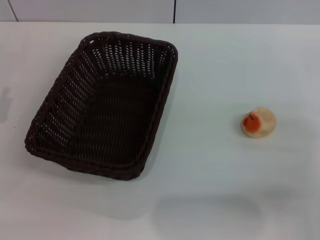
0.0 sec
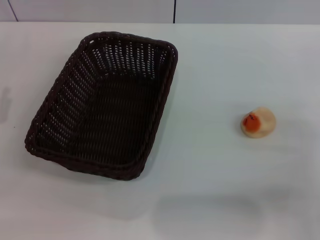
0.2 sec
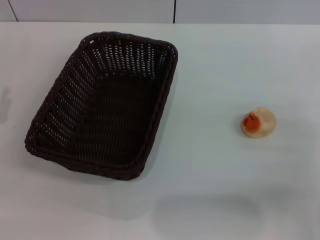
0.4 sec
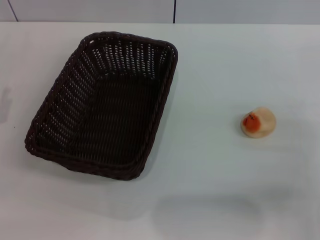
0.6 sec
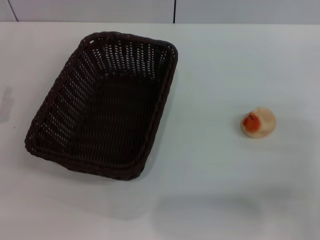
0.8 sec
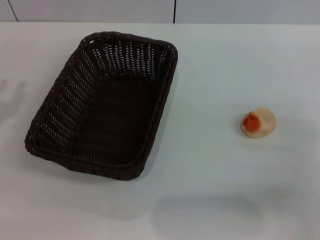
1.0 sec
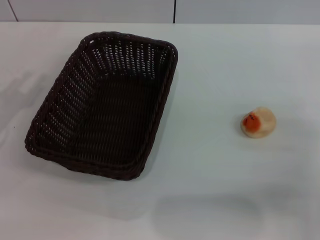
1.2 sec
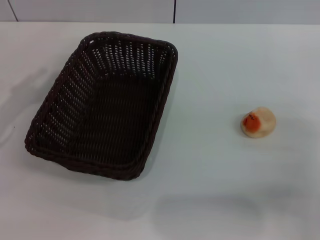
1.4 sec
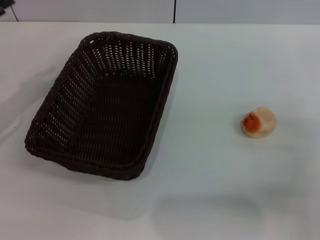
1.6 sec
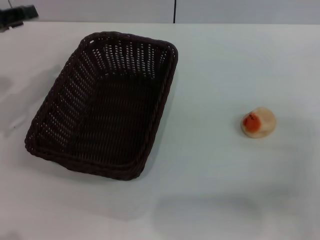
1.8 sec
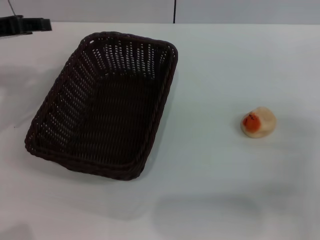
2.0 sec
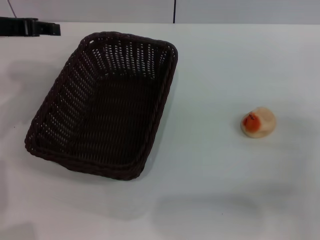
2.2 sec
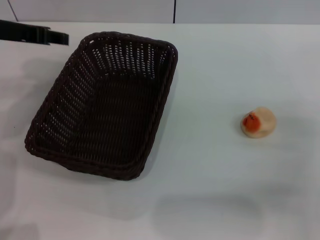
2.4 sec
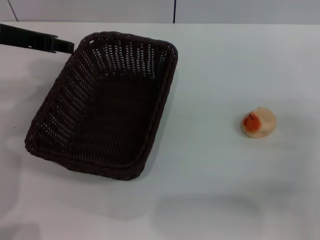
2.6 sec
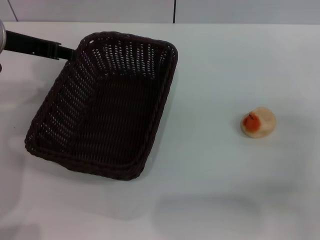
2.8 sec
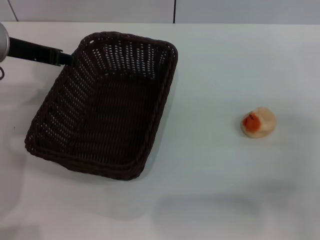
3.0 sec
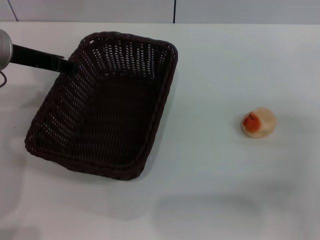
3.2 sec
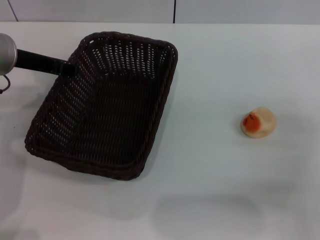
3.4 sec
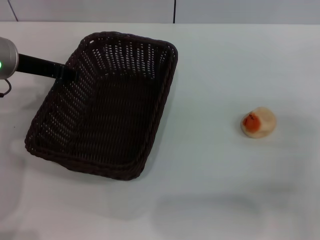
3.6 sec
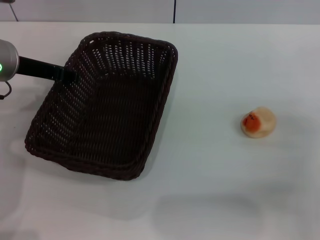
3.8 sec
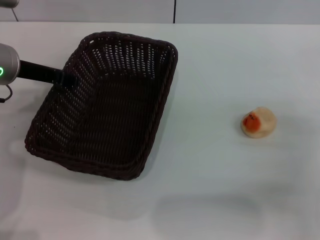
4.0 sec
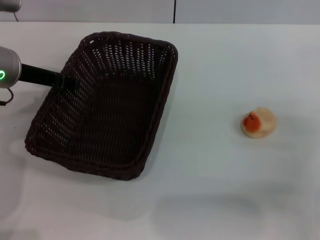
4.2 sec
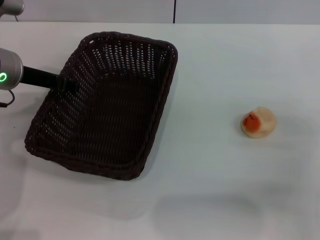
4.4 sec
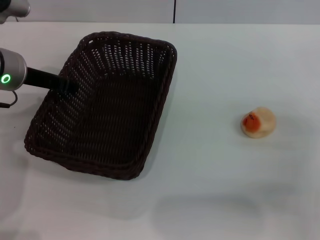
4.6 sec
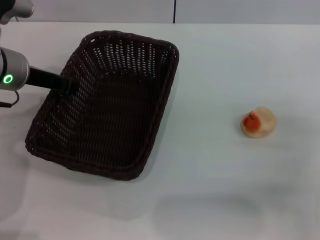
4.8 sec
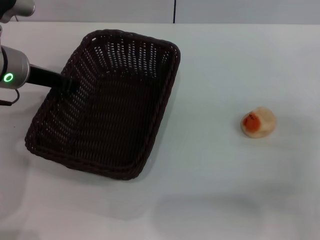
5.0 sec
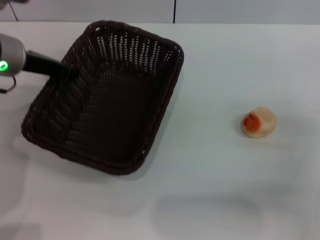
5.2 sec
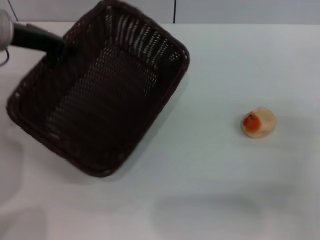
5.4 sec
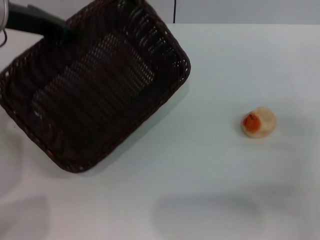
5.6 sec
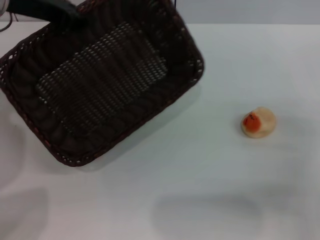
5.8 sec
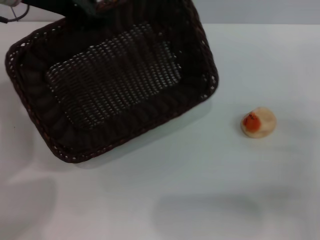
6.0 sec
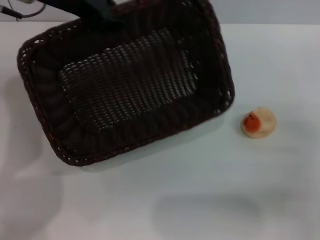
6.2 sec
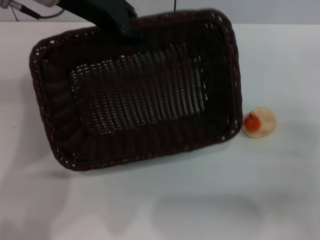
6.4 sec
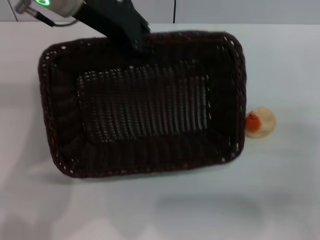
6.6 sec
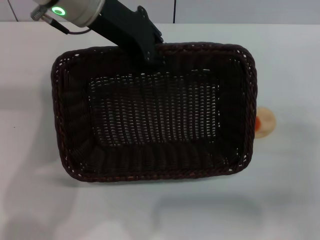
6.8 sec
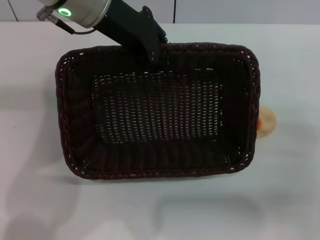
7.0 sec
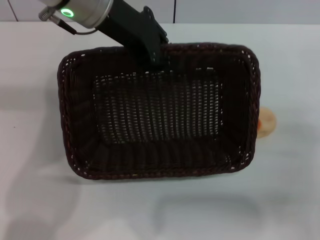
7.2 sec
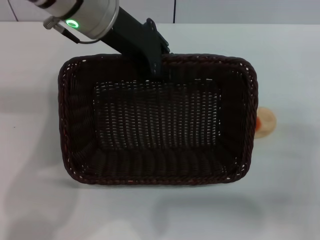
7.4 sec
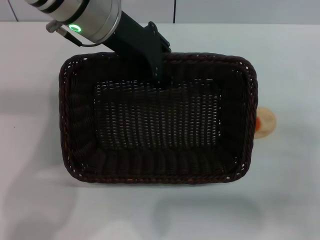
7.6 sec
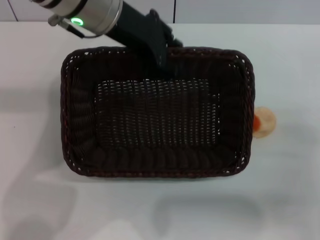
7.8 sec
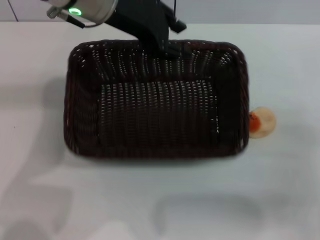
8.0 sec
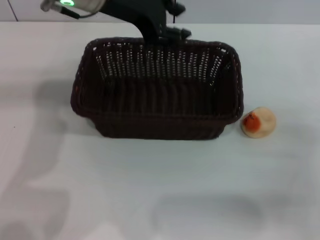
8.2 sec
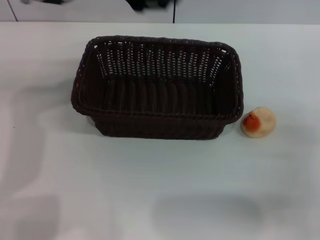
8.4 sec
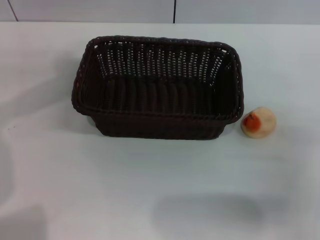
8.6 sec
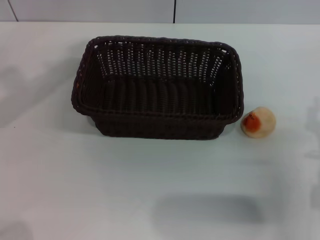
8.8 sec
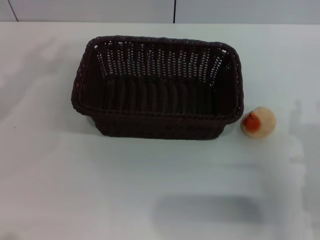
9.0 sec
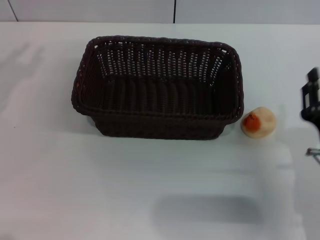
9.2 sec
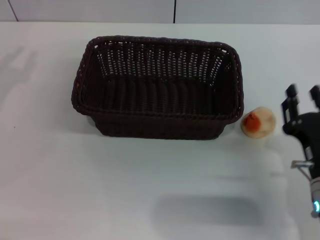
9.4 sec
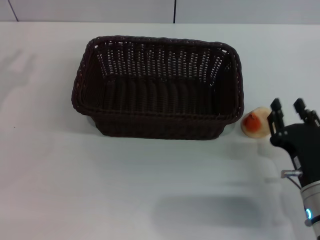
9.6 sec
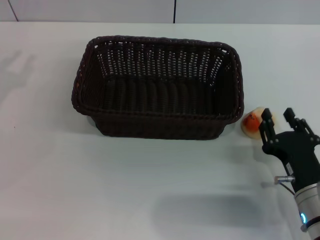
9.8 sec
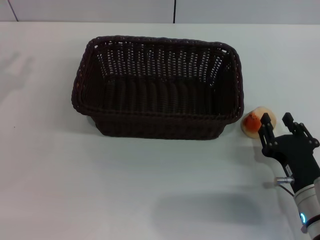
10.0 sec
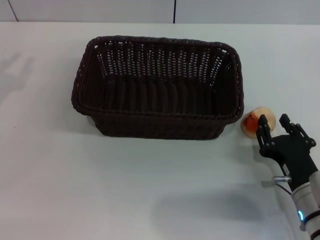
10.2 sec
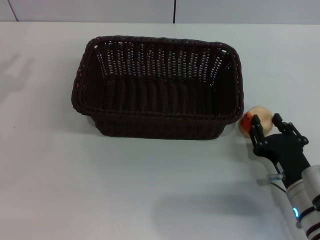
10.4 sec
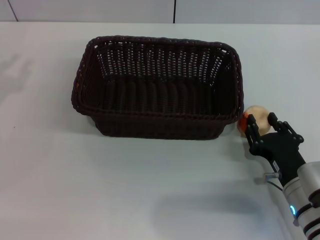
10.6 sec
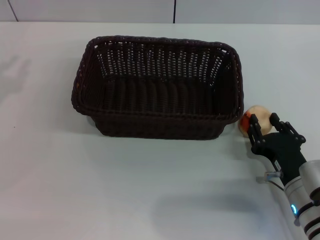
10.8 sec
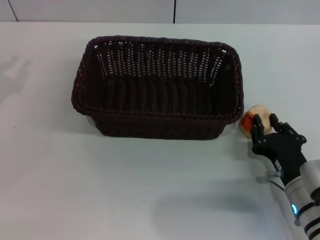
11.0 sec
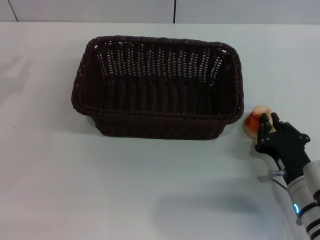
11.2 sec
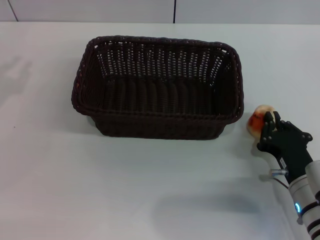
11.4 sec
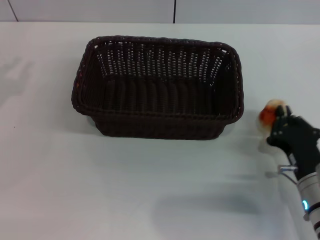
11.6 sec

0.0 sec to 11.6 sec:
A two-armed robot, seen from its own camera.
Step, 0.0 sec to 8.0 sec: Move the basket to the center of view with the left gripper.
1.4 sec to 2.8 sec: The left gripper goes some 15 cm to the right, forward and upward.
2.8 sec to 4.4 sec: The left gripper travels downward by approximately 5 cm.
4.4 sec to 5.8 sec: The left gripper heads upward, covering approximately 10 cm, and closes up.
5.8 sec to 7.2 sec: The left gripper is displaced to the right by approximately 10 cm.
7.2 sec to 8.8 sec: The left gripper shifts roughly 20 cm to the left, and opens up.
8.8 sec to 10.2 sec: The right gripper travels downward by some 5 cm.
10.2 sec to 11.6 sec: The right gripper closes.

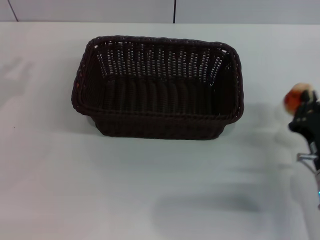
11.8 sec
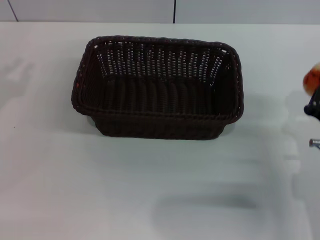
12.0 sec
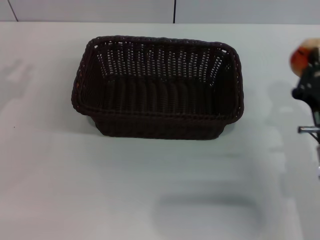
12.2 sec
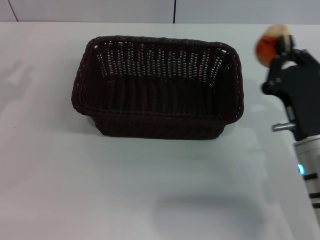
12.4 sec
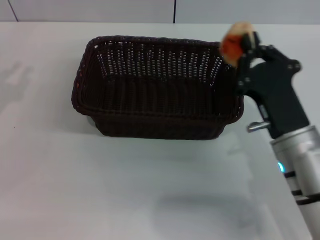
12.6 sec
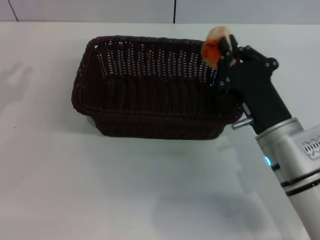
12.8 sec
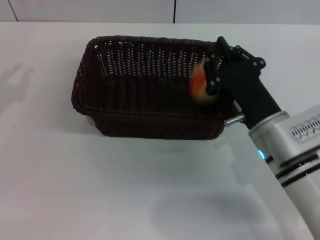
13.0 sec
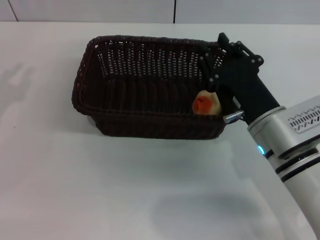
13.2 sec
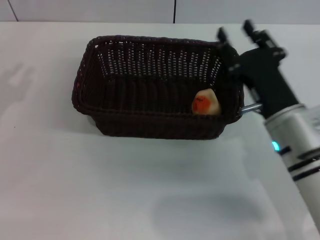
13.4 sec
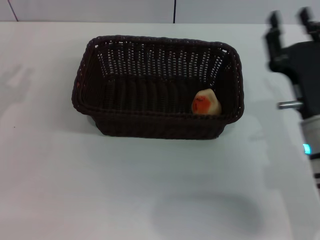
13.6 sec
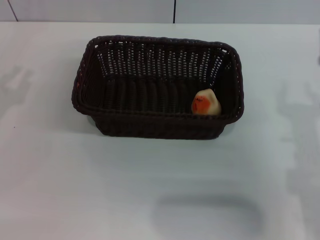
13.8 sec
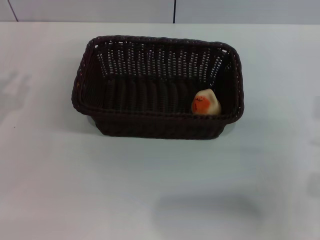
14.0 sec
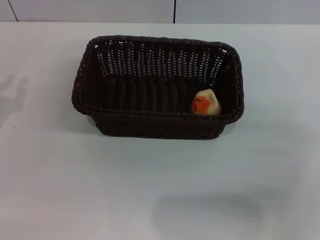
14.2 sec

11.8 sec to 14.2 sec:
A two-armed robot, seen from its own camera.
Step, 12.0 sec to 13.0 sec: Place the egg yolk pastry into the basket with the right gripper.
11.8 sec to 13.0 sec: The right gripper heads to the left and upward, covering about 10 cm.
13.0 sec to 14.2 sec: The left gripper shifts roughly 5 cm downward. The right gripper goes approximately 15 cm to the right, and opens its fingers.

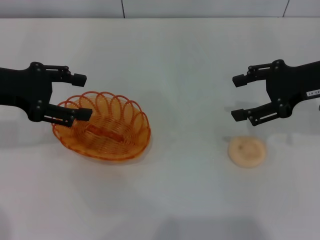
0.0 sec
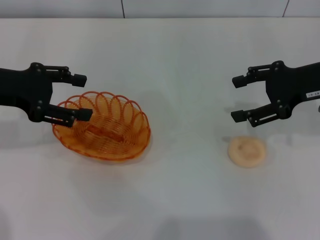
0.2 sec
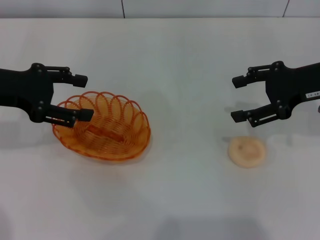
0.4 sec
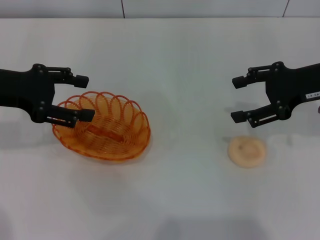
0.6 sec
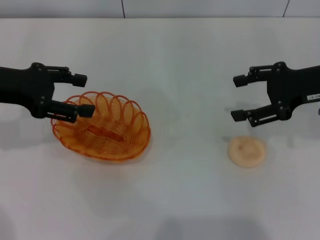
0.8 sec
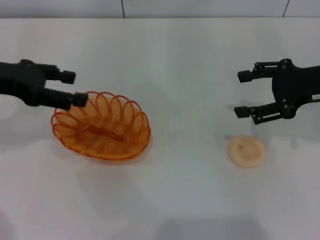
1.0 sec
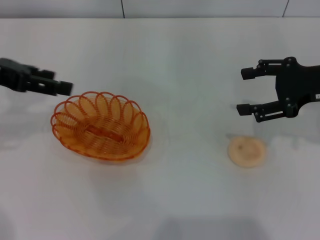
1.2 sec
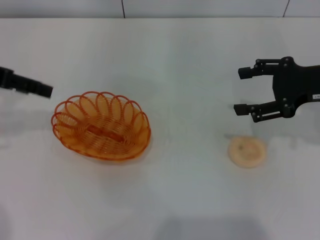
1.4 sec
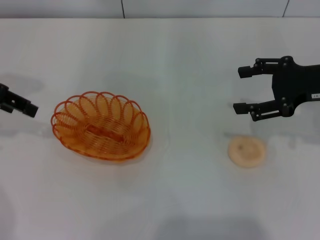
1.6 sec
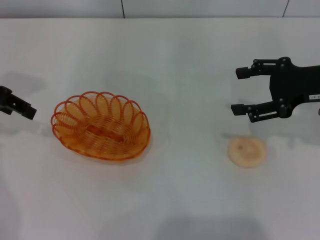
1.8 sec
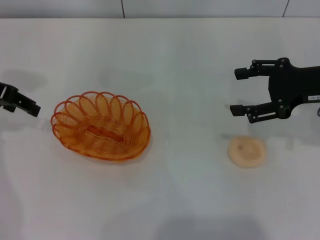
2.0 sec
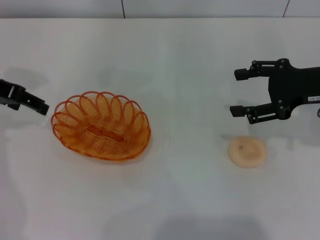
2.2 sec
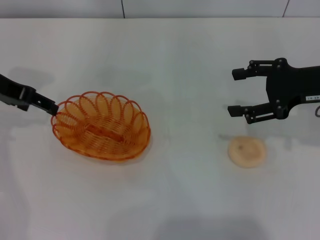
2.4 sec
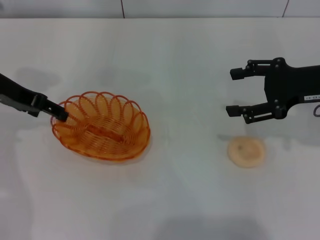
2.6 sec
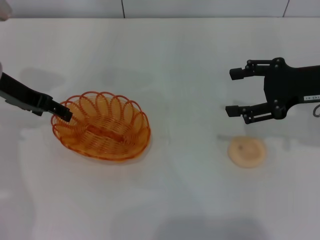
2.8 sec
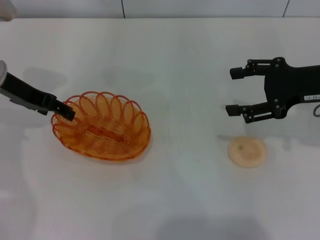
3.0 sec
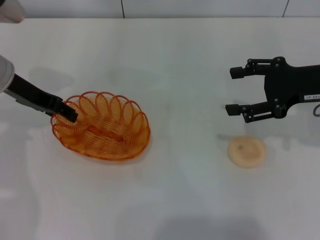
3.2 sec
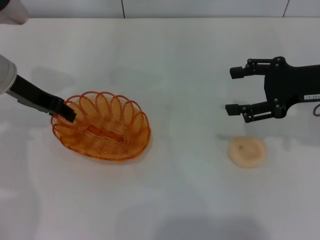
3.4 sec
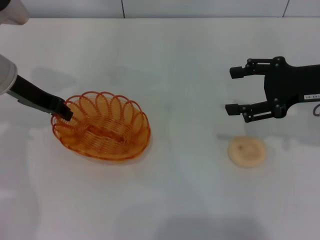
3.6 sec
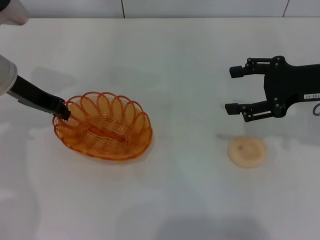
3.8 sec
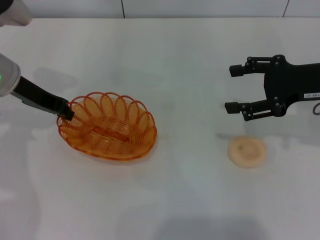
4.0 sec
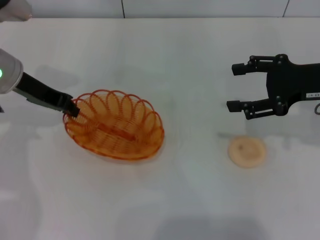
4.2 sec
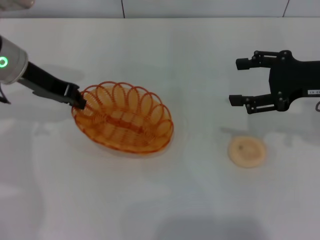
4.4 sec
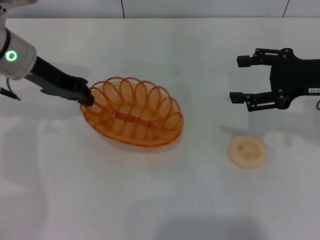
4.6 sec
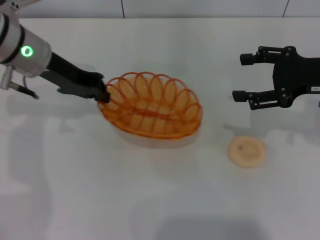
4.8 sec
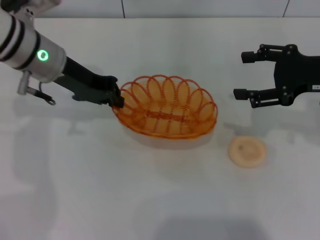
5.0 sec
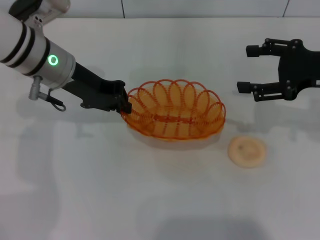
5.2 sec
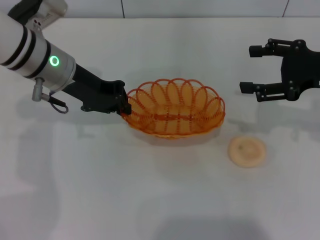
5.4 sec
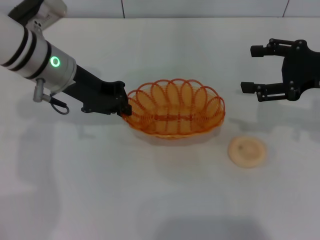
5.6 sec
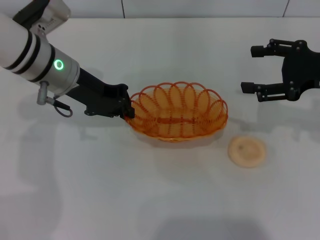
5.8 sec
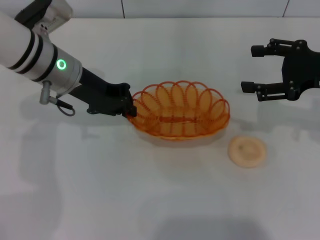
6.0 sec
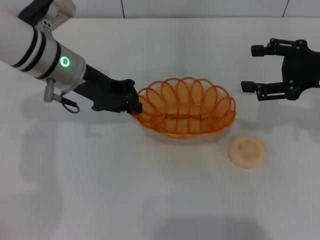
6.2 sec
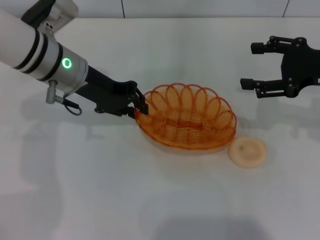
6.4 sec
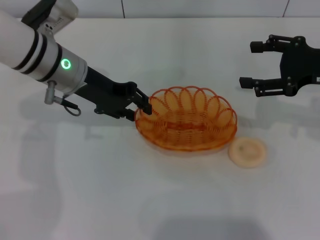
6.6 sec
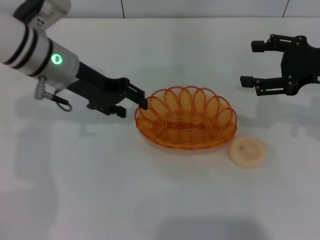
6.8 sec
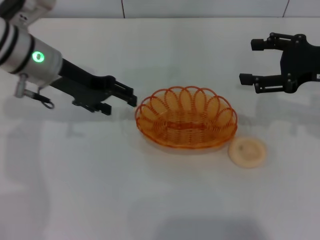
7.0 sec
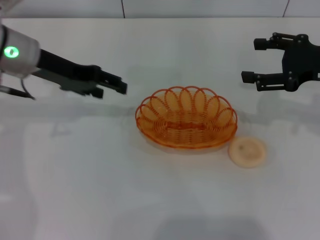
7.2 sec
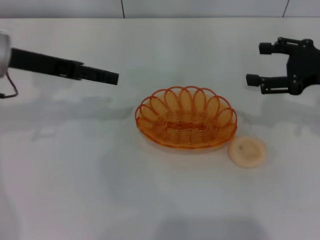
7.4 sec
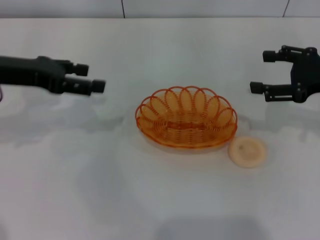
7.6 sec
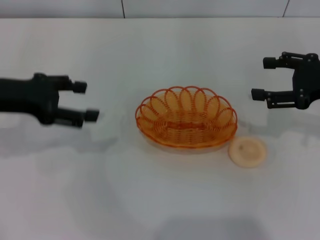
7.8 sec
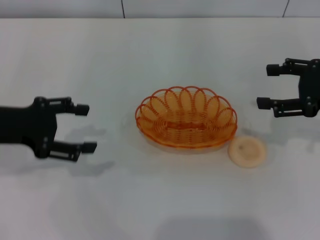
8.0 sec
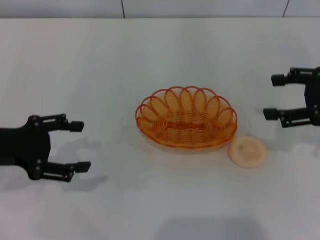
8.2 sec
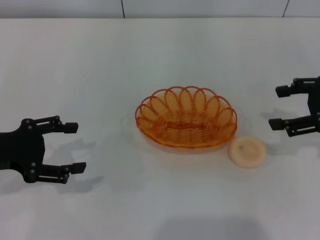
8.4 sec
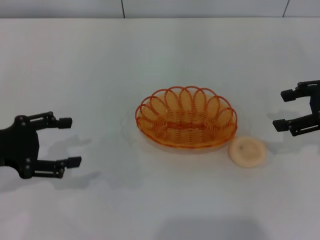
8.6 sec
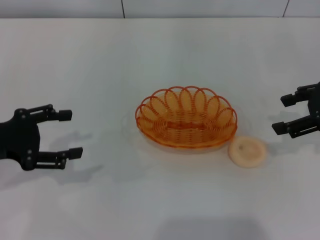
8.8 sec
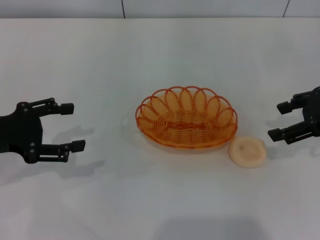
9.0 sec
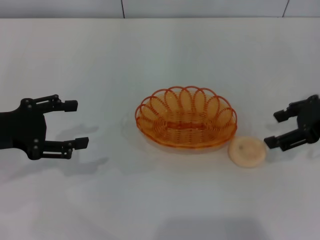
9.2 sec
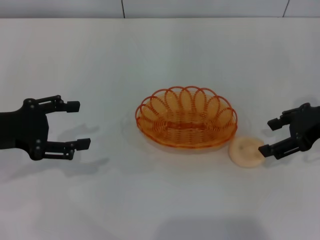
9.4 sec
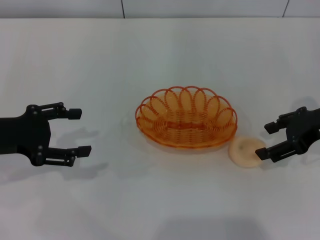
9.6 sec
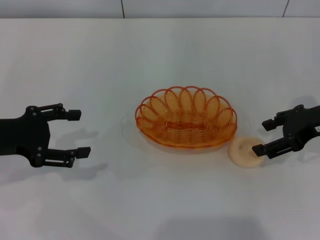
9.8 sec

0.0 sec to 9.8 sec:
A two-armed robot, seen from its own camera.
Step, 0.0 sec to 4.4 sec: Pick up the basket with the left gripper.
Step, 4.6 sec to 6.8 sec: Place the basket in the center of view with the left gripper.
0.0 sec to 1.4 sec: The left gripper is displaced upward by about 5 cm.
1.4 sec to 2.8 sec: The left gripper is displaced downward by approximately 5 cm.
2.8 sec to 4.2 sec: The left gripper closes.
4.2 sec to 5.6 sec: The left gripper travels to the right by approximately 5 cm.
5.6 sec to 7.0 sec: The left gripper opens.
7.0 sec to 8.4 sec: The left gripper heads backward and to the left, covering approximately 20 cm.
8.4 sec to 9.8 sec: The right gripper changes place by some 5 cm.
